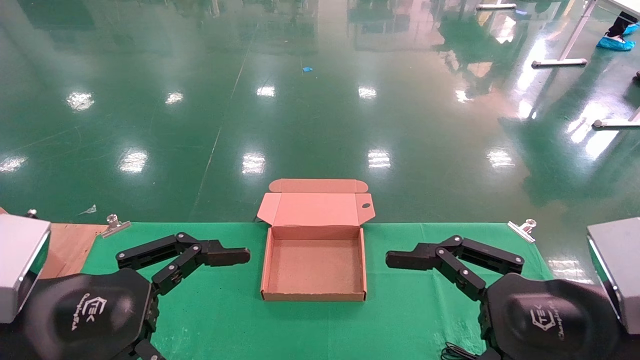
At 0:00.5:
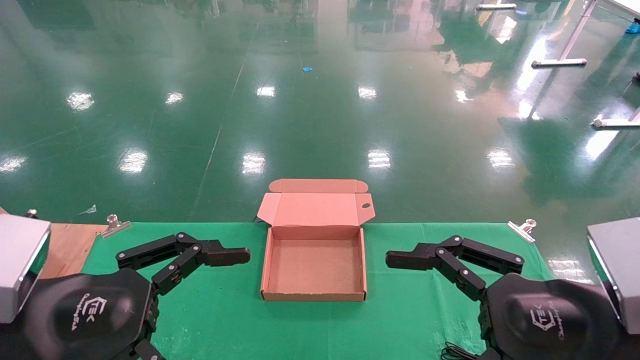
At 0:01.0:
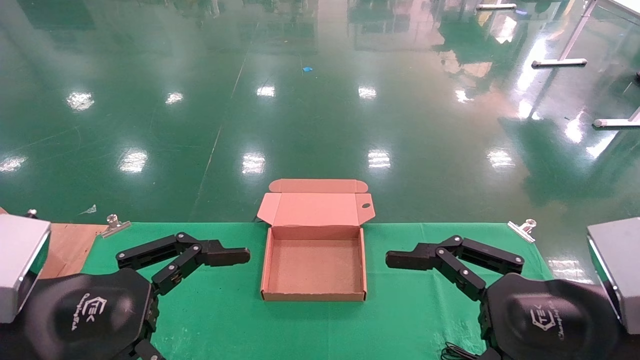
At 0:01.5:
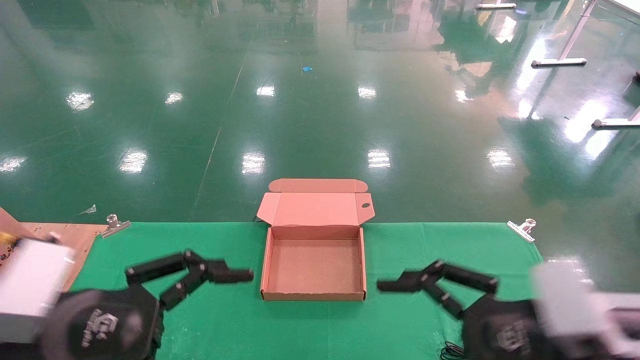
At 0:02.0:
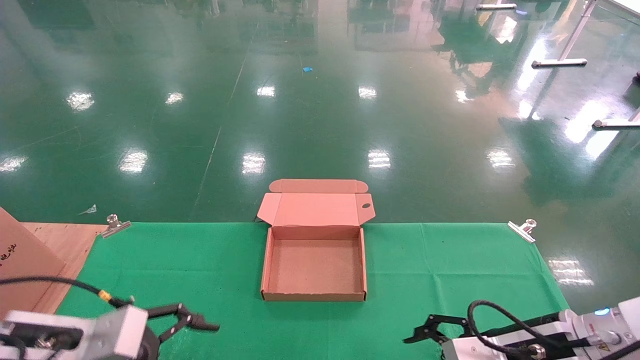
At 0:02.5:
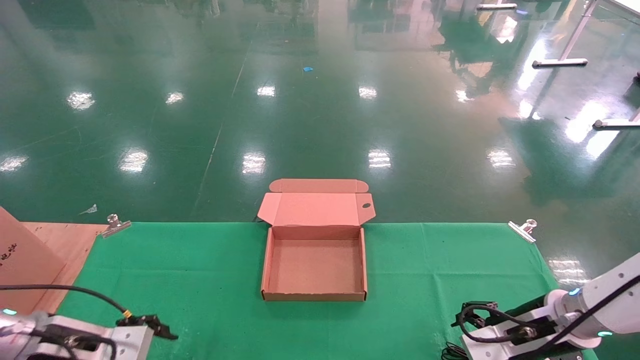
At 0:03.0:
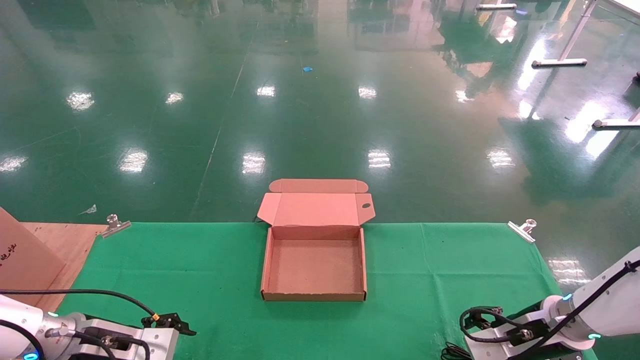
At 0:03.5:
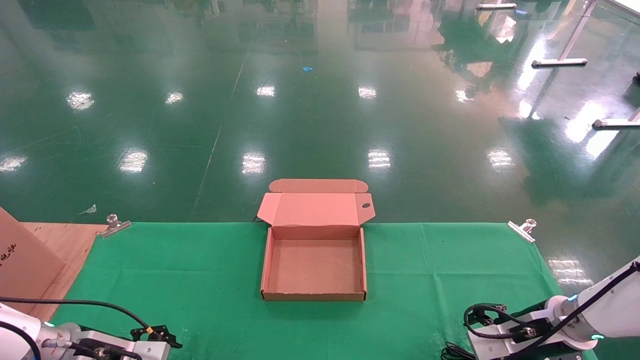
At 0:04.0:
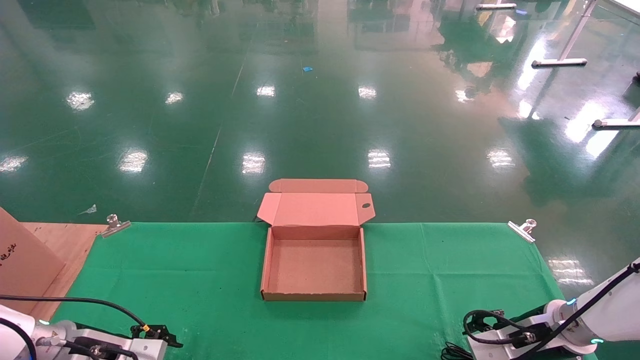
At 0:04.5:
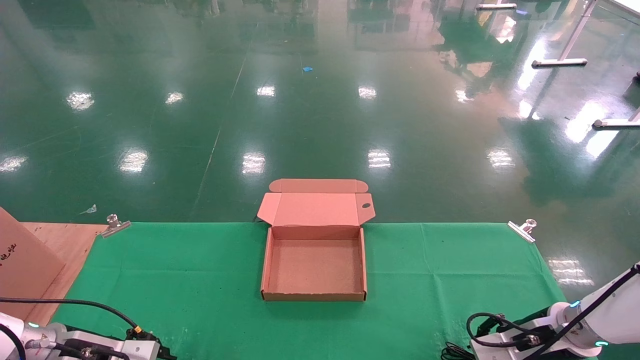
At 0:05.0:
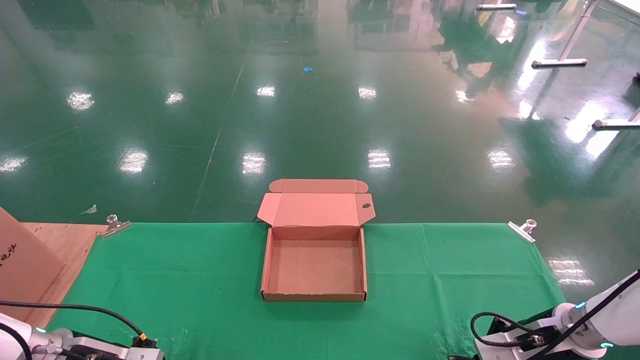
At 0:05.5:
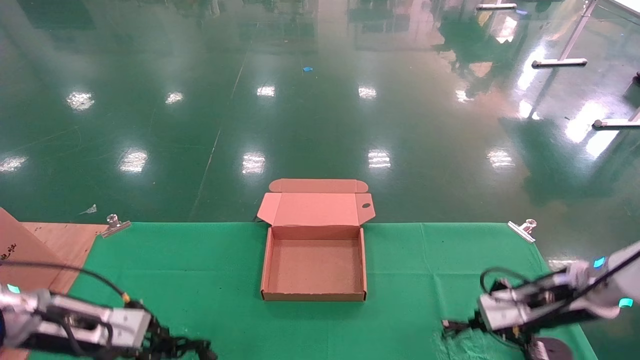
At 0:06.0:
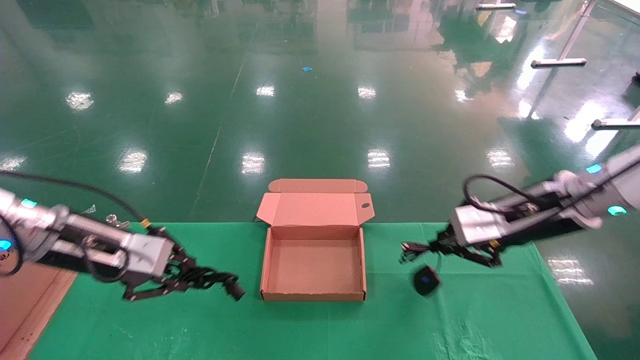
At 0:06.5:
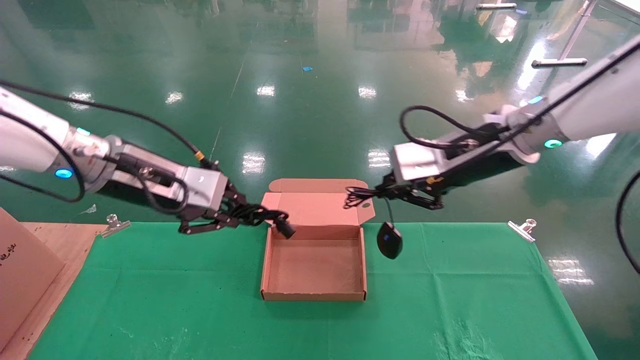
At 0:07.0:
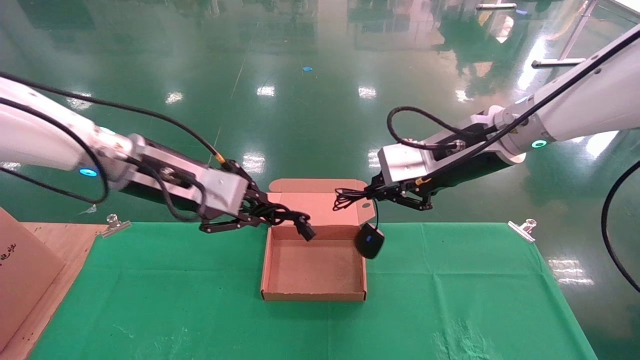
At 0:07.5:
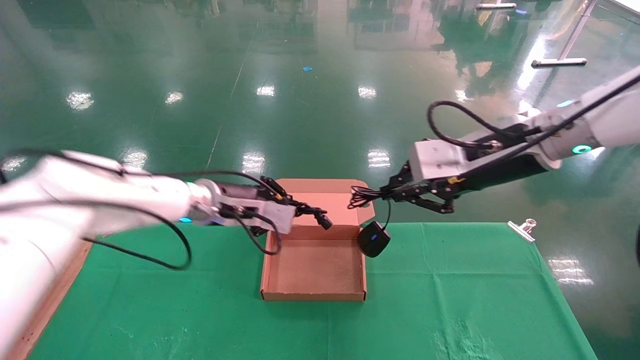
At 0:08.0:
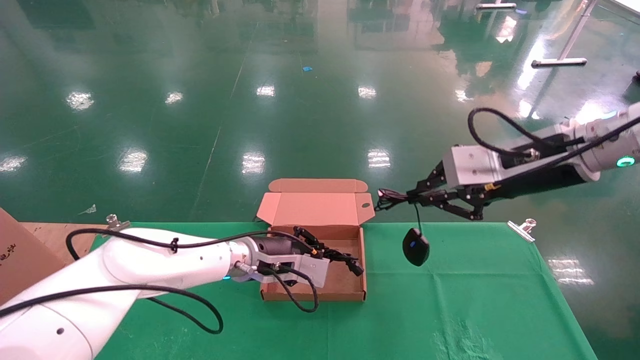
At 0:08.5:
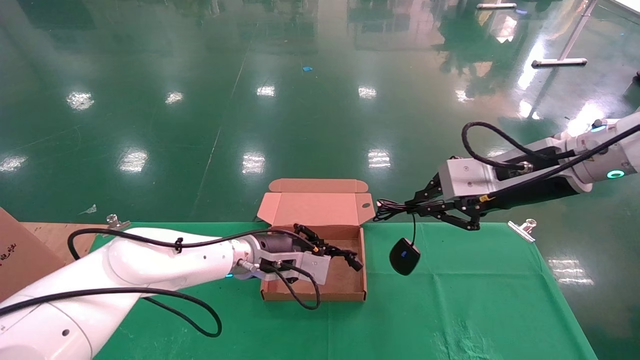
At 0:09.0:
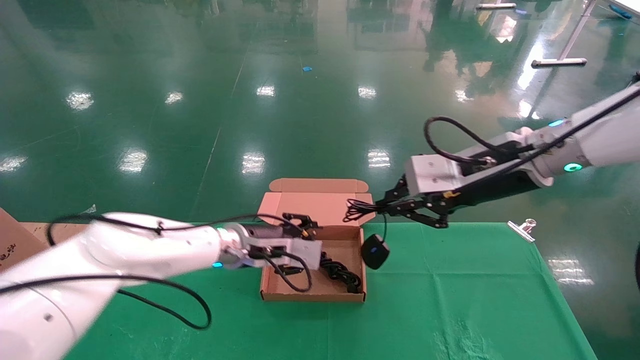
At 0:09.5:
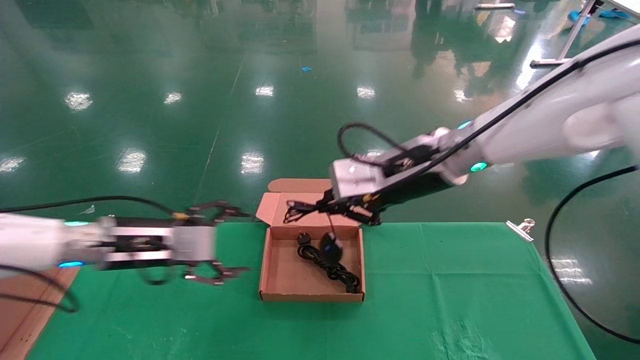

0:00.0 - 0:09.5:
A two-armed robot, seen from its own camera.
Step, 0:02.0 - 0:05.0: Grab and lift both the mouse and power cord from the accessory packaging area at the same time.
0:00.0 - 0:02.0: The left gripper shifts roughly 15 cm downward and forward, while the right gripper goes roughly 15 cm forward and downward.
0:02.0 - 0:04.0: The right gripper travels forward, to the right and downward by approximately 15 cm; the left gripper moves forward, downward and to the left, approximately 15 cm.
0:04.0 - 0:05.5: Both grippers travel together upward, roughly 10 cm. The left gripper closes. Meanwhile the right gripper closes.
0:05.5 - 0:07.5: The right gripper moves upward and to the left, some 25 cm. The left gripper goes about 25 cm to the right, forward and upward.
0:07.5 - 0:09.5: The right gripper shifts about 10 cm to the left. The left gripper travels to the left and backward by about 15 cm, and opens up.

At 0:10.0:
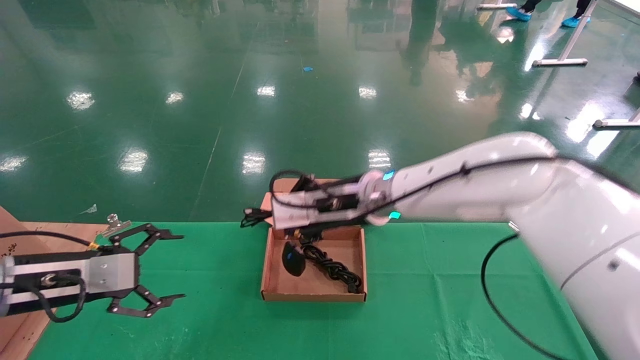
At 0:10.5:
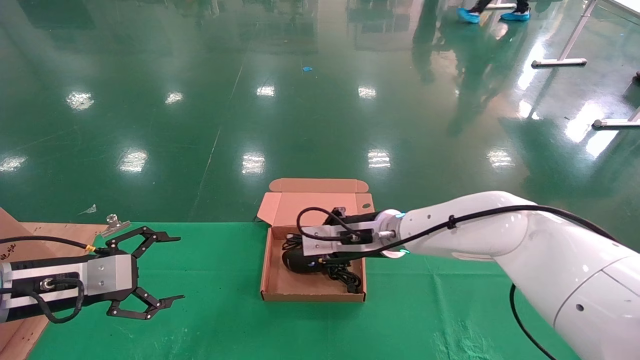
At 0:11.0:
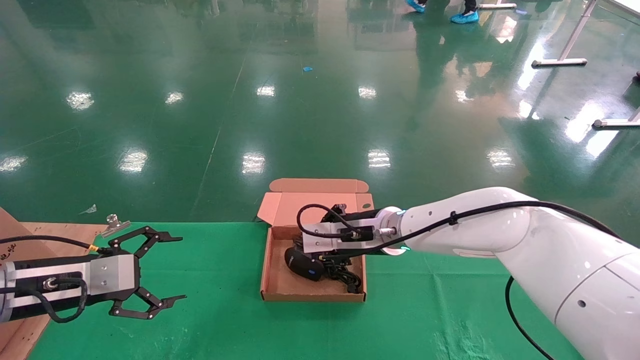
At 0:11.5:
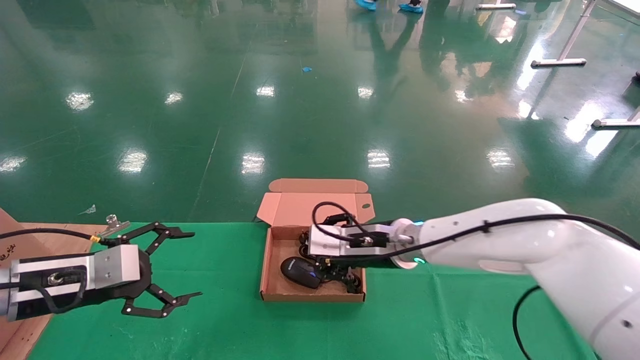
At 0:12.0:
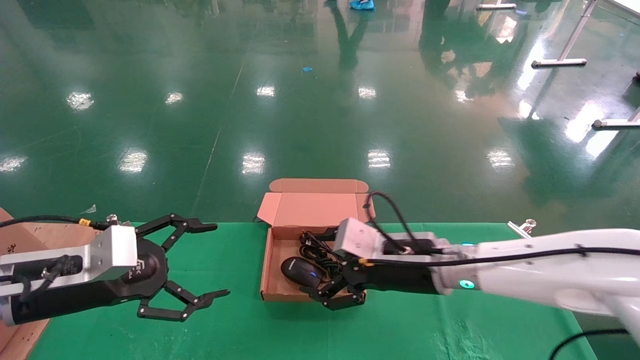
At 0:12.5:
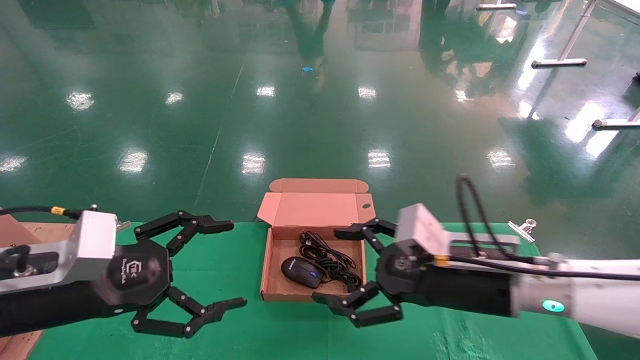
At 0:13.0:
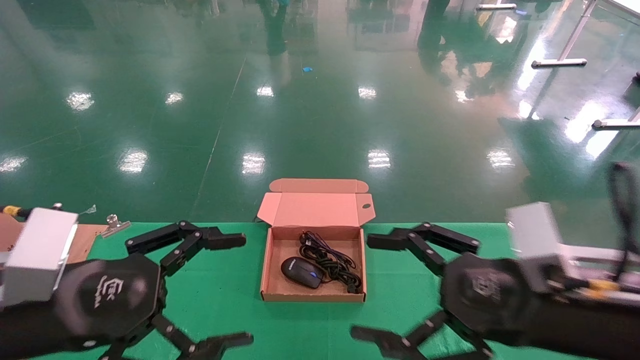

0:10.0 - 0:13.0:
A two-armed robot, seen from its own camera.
0:10.0 - 0:11.5: The right gripper travels downward by roughly 10 cm, and opens.
0:11.5 - 0:13.0: The right gripper moves backward and to the right, approximately 25 cm, and opens up; the left gripper goes about 15 cm backward, to the right and upward.

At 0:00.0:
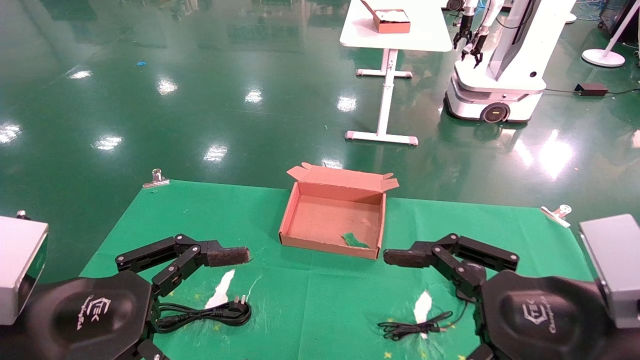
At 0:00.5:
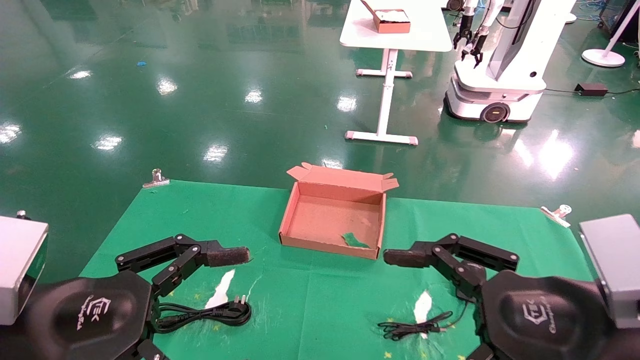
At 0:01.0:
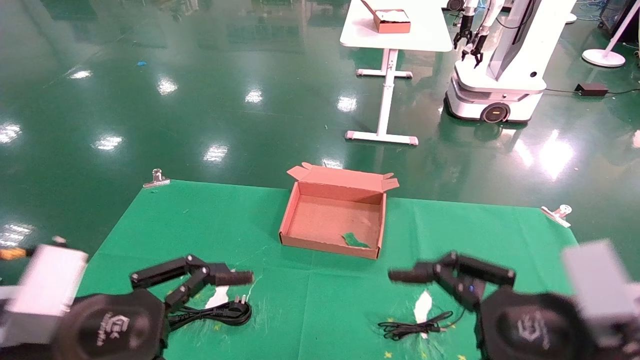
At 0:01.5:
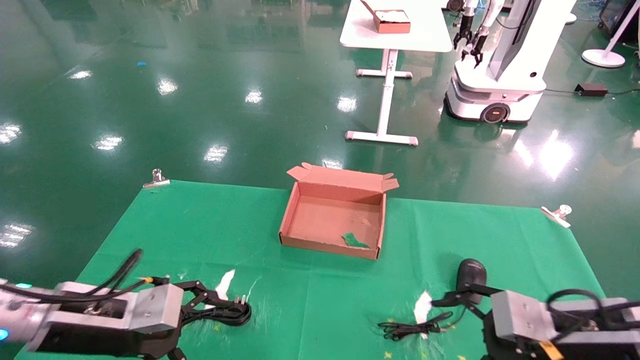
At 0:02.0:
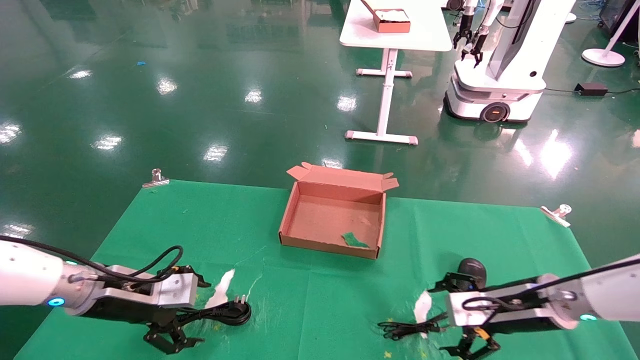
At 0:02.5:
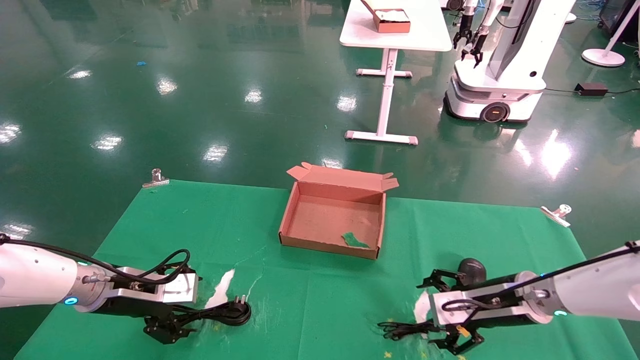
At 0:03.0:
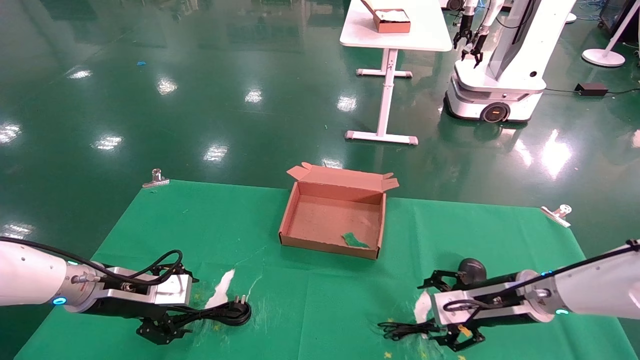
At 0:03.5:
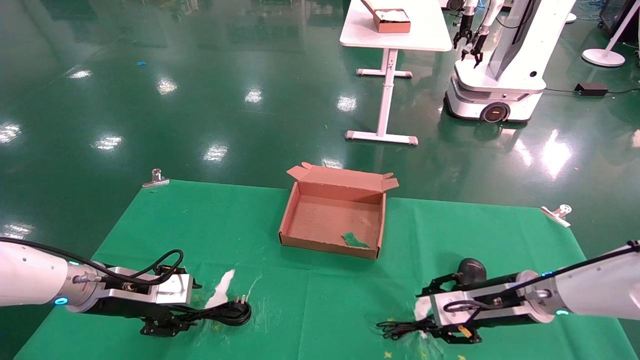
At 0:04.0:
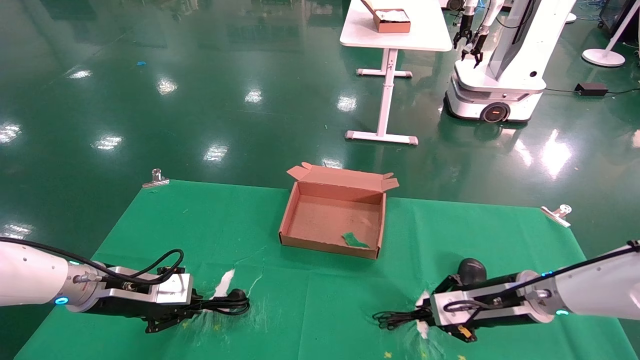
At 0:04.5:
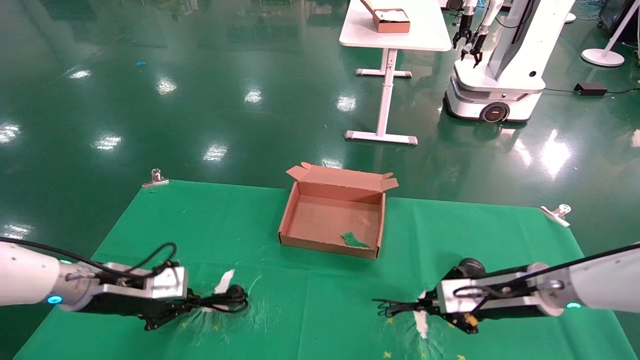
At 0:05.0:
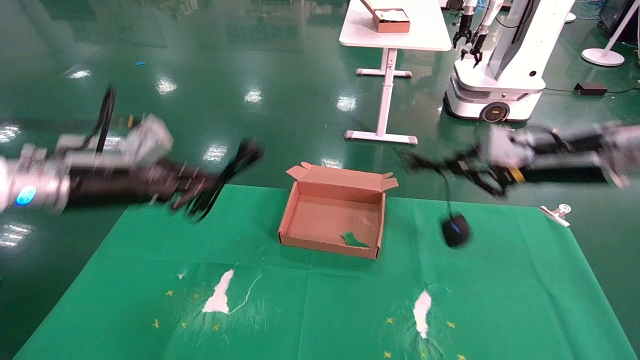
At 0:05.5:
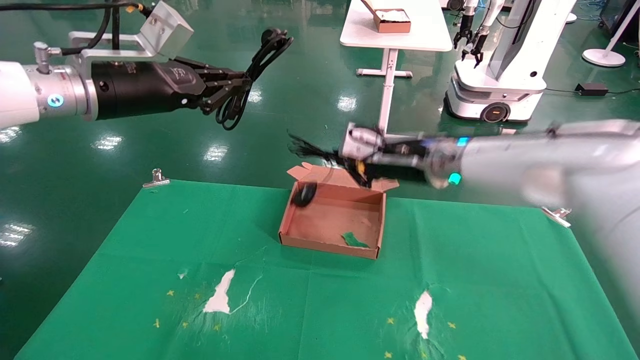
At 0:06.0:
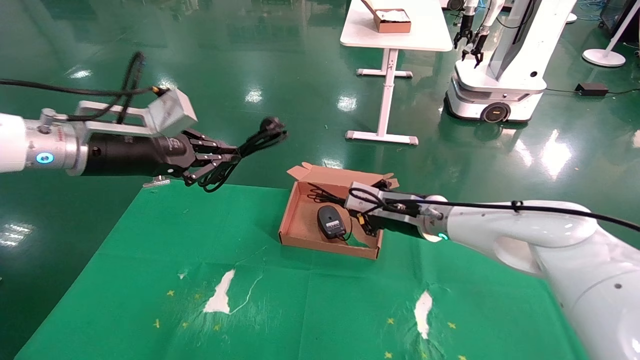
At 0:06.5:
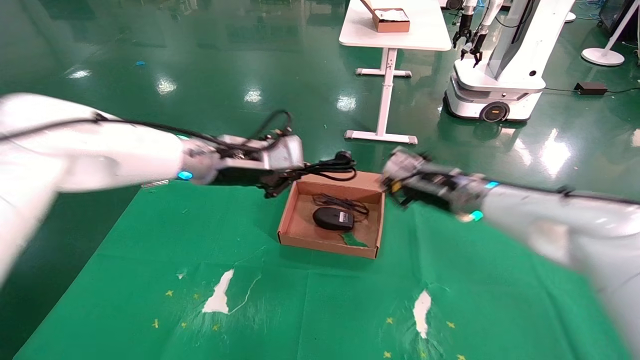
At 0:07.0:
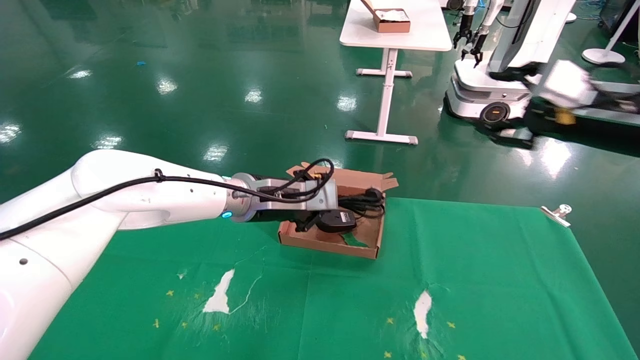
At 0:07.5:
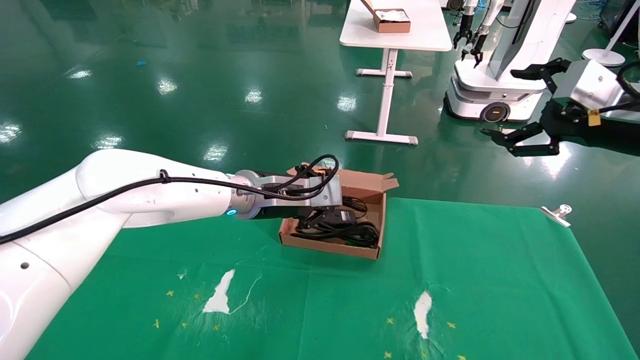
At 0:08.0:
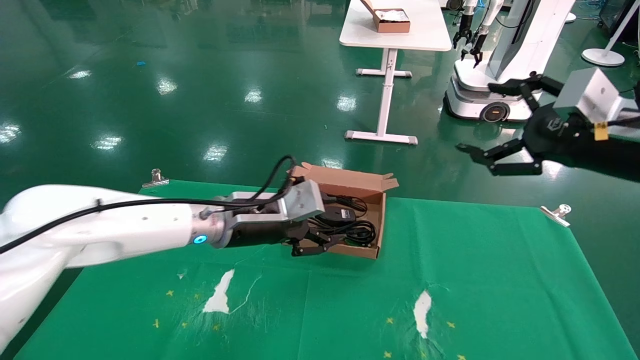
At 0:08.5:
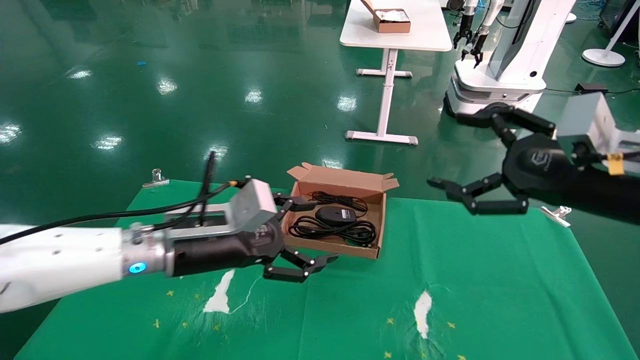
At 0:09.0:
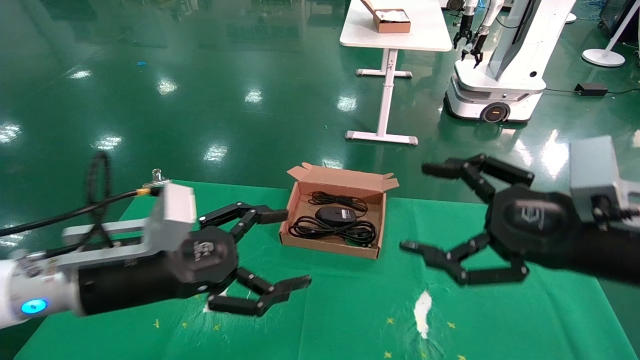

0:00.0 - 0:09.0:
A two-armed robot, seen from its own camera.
Step, 0:01.5 - 0:04.0: Grab and lift both the mouse and power cord from the accessory packaging area at the same time.
Step, 0:04.5 - 0:07.5: Place the mouse and power cord into the box.
0:00.0 - 0:02.0: The right gripper is displaced forward and downward by about 25 cm; the left gripper is displaced forward by about 20 cm.
0:02.0 - 0:04.5: The right gripper closes, while the left gripper closes up.
0:04.5 - 0:07.0: The left gripper heads to the right and upward, covering roughly 25 cm. Meanwhile the right gripper moves upward, some 20 cm, reaches some 15 cm to the left, then returns, and opens up.
0:07.0 - 0:09.0: The left gripper travels backward and to the left by some 20 cm, and opens; the right gripper travels backward, downward and to the left by about 20 cm, and opens.
